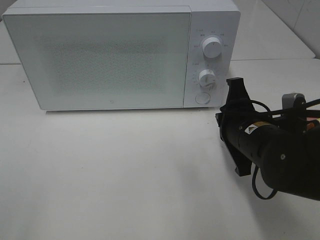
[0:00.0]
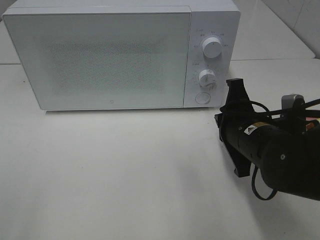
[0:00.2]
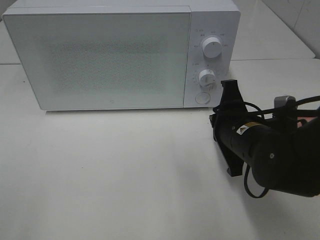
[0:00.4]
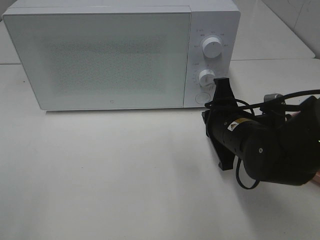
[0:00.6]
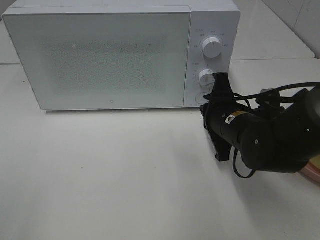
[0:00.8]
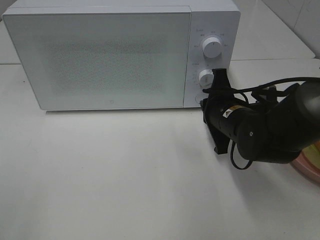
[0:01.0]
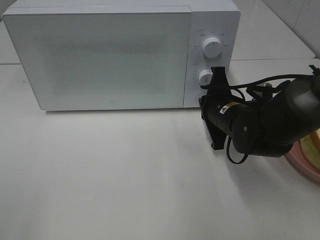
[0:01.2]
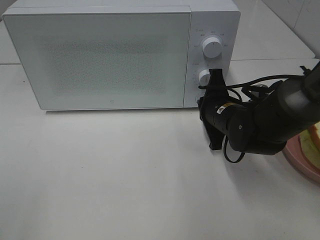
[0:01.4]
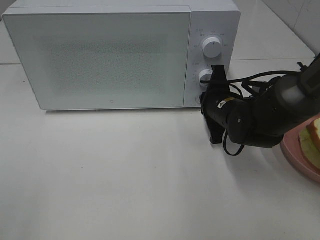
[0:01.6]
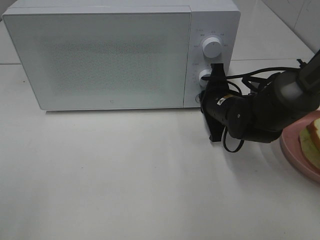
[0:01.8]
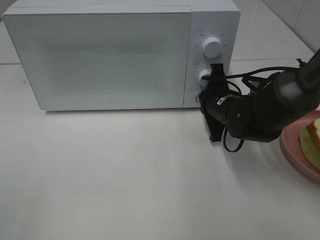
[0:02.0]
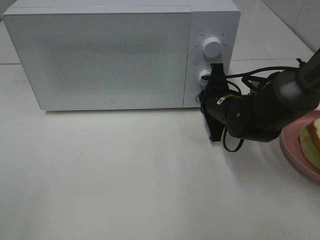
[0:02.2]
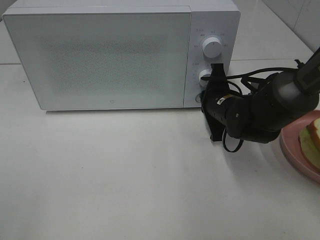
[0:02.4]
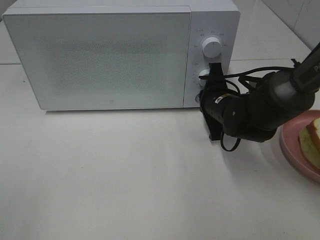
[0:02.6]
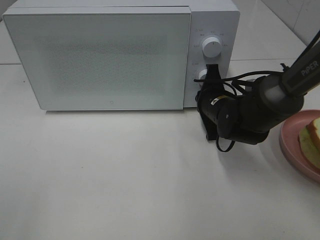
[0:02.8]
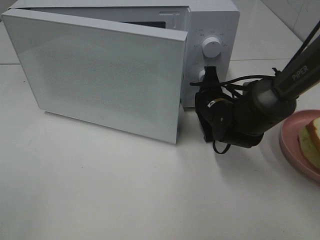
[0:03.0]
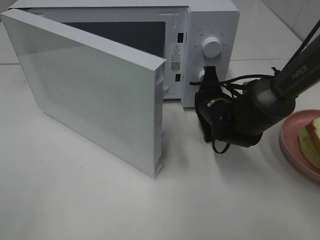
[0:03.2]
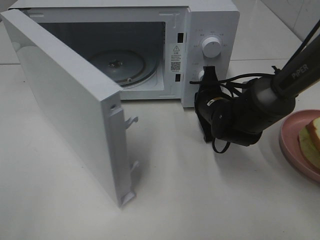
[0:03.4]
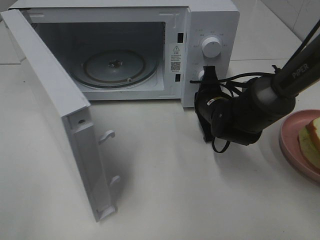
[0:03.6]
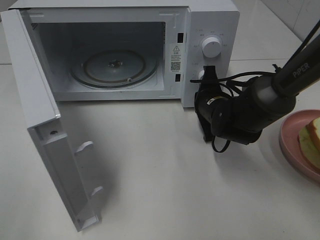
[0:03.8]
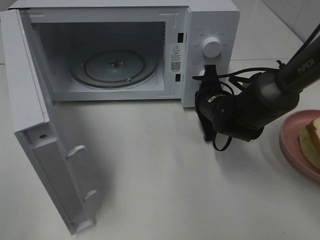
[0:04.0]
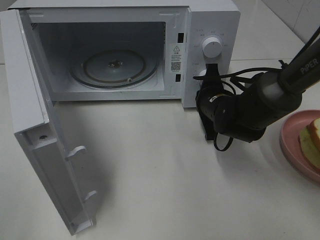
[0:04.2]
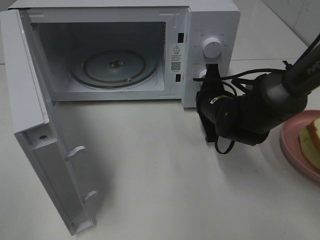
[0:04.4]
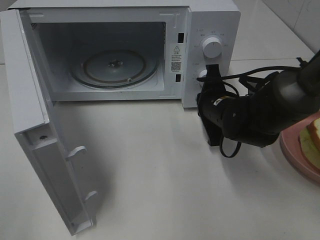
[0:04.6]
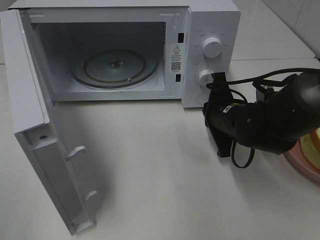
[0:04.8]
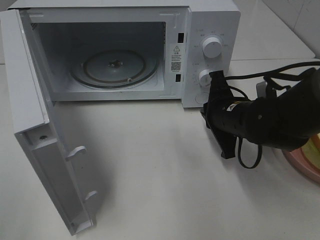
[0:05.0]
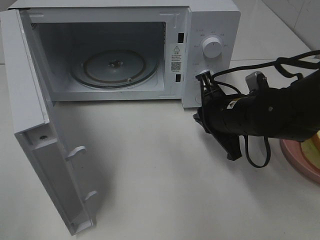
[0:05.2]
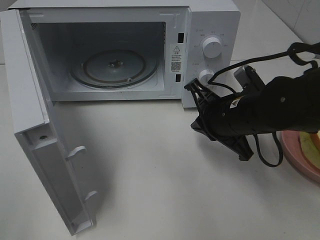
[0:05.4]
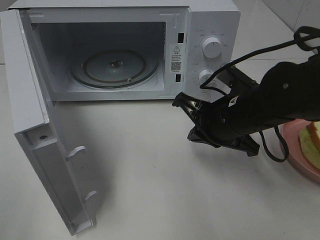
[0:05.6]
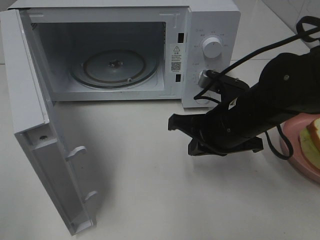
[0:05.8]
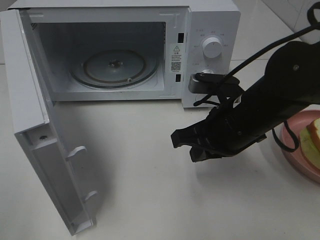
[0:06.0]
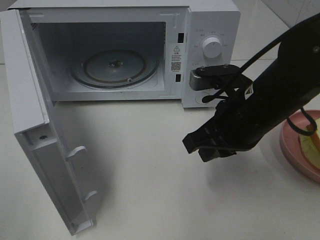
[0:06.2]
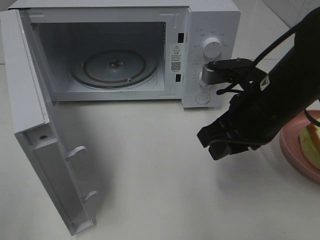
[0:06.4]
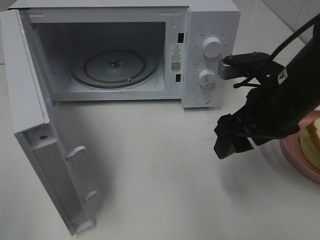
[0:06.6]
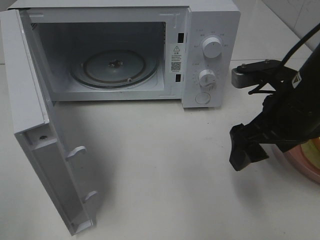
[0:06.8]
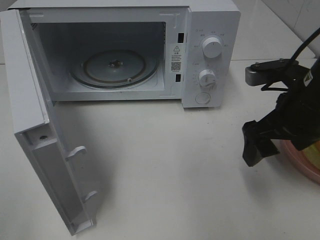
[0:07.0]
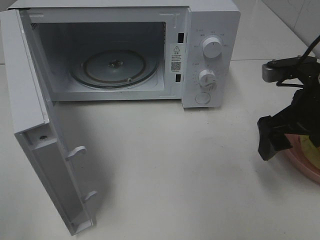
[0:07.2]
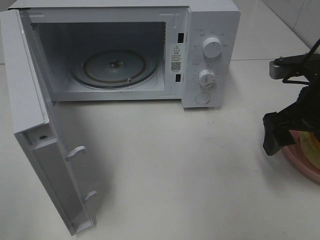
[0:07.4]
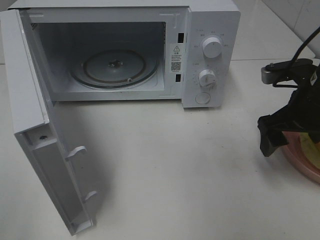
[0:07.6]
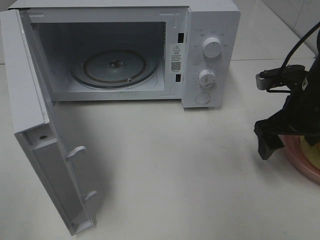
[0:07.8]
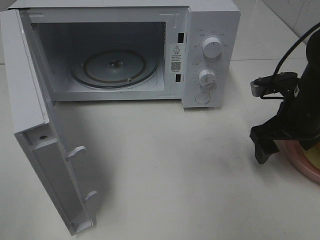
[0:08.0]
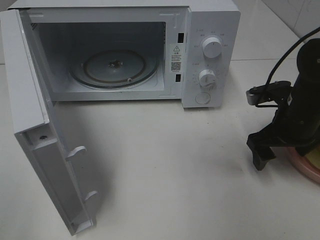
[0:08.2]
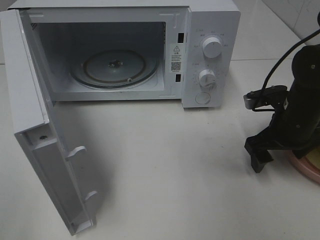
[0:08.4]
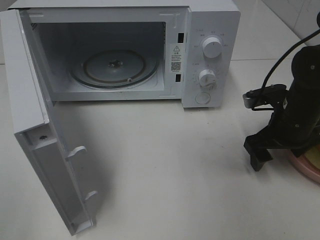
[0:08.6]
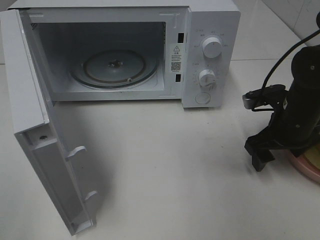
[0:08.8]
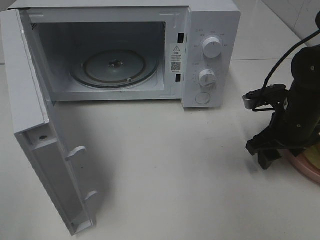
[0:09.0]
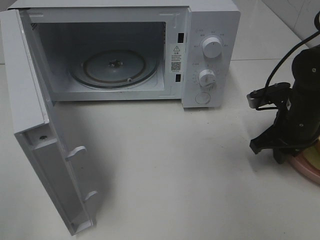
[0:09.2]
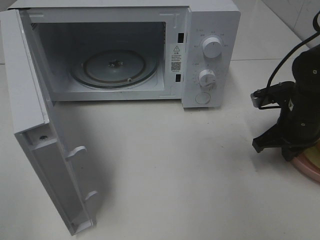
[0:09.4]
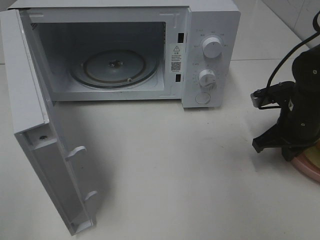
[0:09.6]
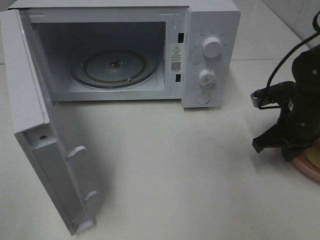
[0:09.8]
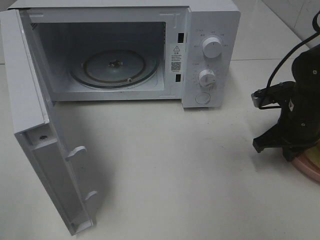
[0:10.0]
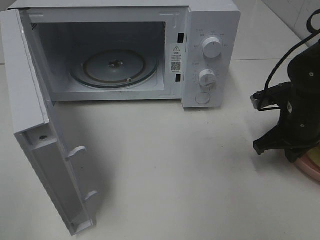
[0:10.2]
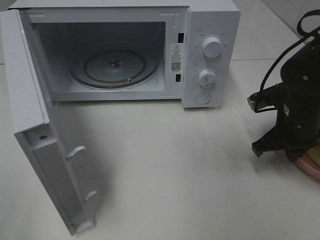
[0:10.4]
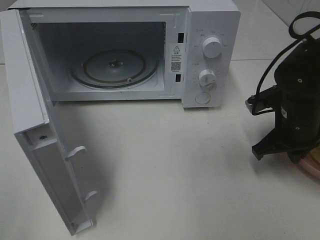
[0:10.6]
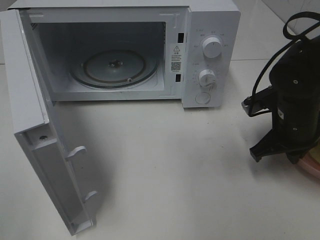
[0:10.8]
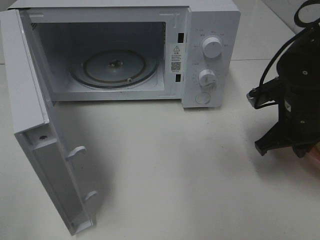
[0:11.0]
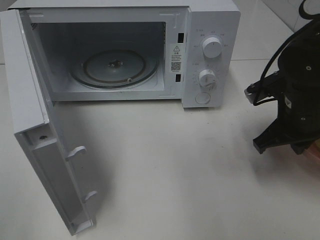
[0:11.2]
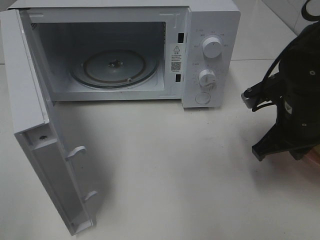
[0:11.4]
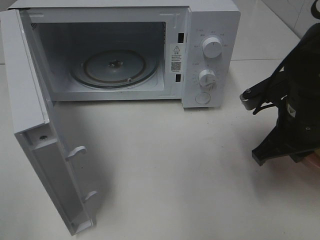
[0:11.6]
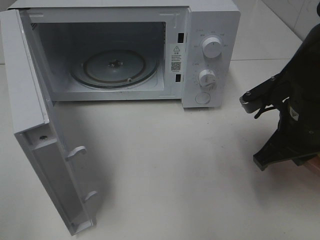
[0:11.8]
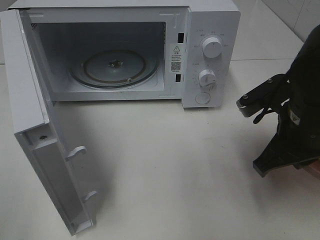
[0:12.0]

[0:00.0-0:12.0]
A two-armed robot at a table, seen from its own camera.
Task of the whole recording: Heat Sandwich.
Step, 0:00.0 to 0:04.6: Right hand: press the switch.
Step, 0:04.8 to 0:09.8: Right hand: grab the plate with the sandwich.
0:00.0 to 0:01.6: The right gripper shifts approximately 10 cm forward.
0:01.6 to 0:03.0: The grippers make only small movements.
0:04.4 to 0:06.0: The right gripper is displaced backward and upward by roughly 10 cm.
0:06.0 to 0:07.6: The right gripper moves to the right, about 10 cm, and opens up.
0:07.6 to 0:09.0: The right gripper is displaced downward by some 5 cm.
0:09.0 to 0:10.4: The right gripper closes up.
0:10.4 to 0:12.0: The right gripper is displaced backward and upward by about 10 cm.

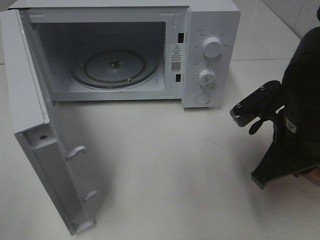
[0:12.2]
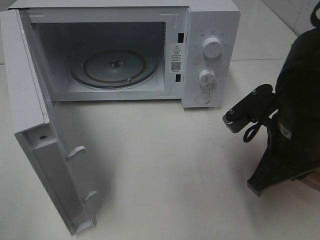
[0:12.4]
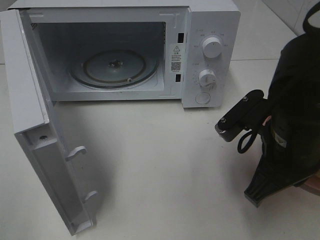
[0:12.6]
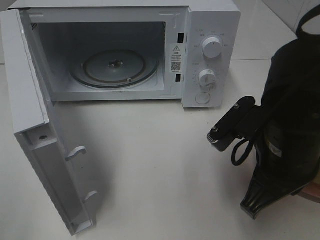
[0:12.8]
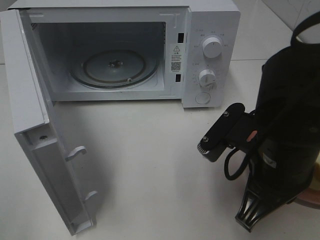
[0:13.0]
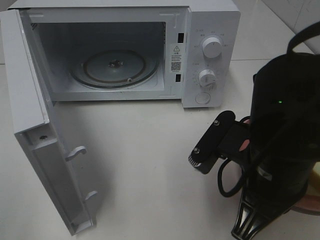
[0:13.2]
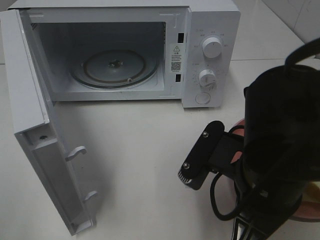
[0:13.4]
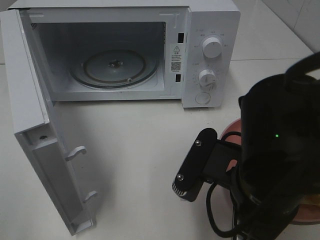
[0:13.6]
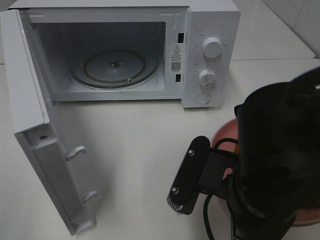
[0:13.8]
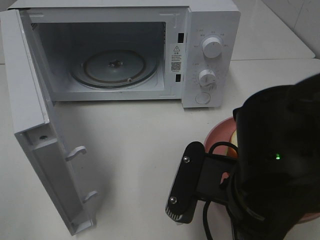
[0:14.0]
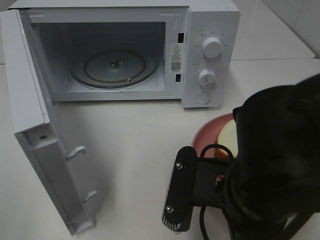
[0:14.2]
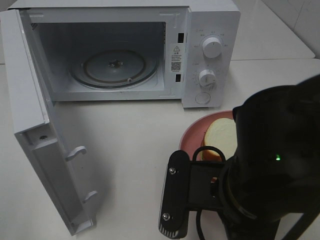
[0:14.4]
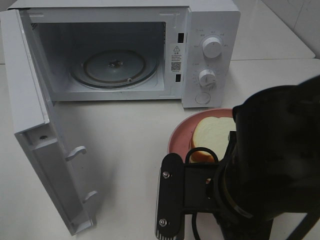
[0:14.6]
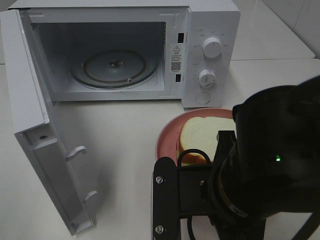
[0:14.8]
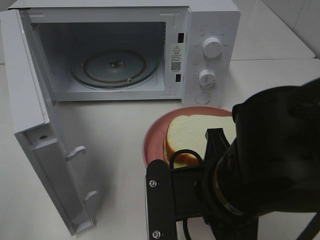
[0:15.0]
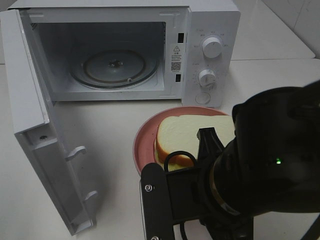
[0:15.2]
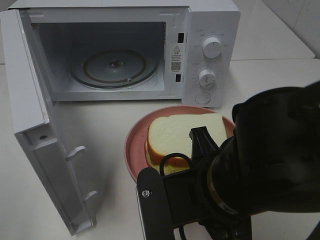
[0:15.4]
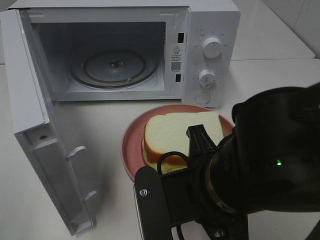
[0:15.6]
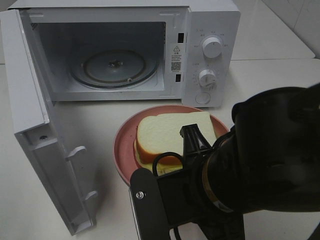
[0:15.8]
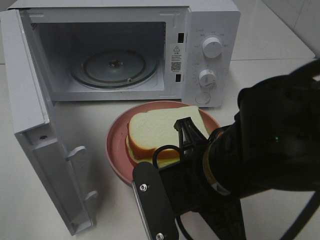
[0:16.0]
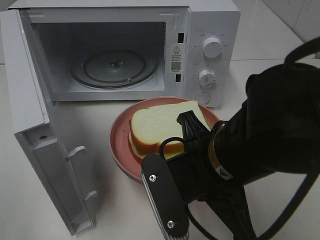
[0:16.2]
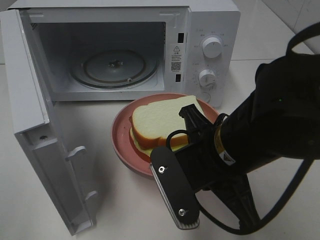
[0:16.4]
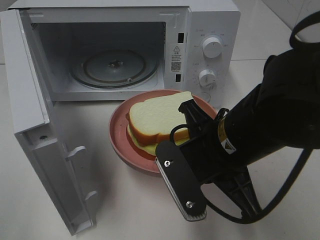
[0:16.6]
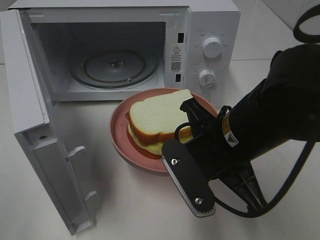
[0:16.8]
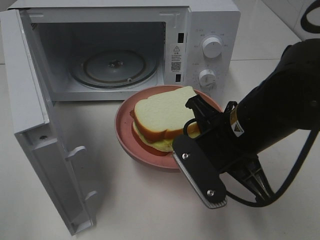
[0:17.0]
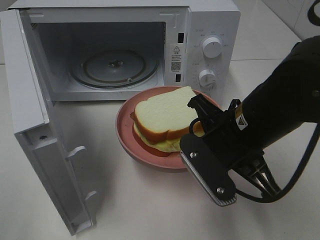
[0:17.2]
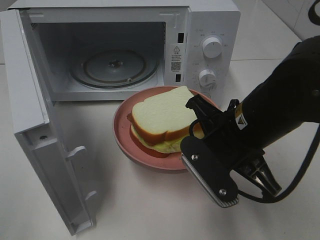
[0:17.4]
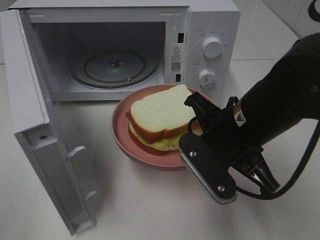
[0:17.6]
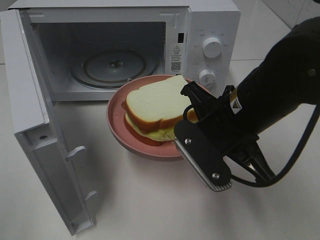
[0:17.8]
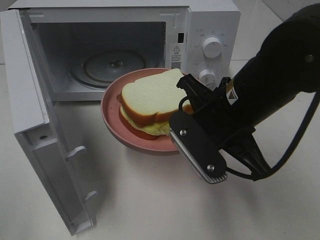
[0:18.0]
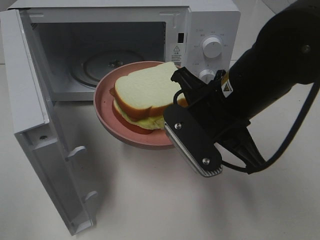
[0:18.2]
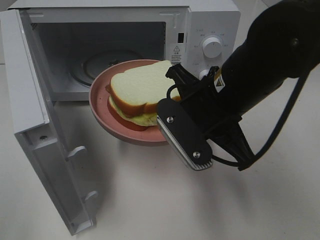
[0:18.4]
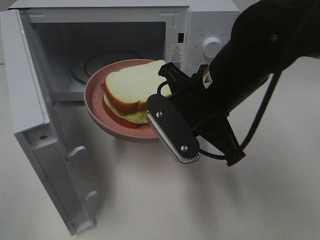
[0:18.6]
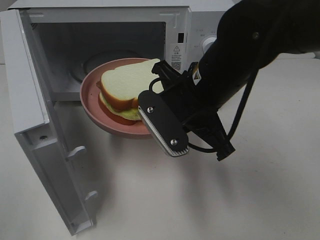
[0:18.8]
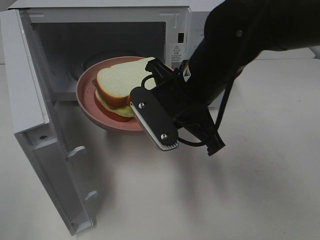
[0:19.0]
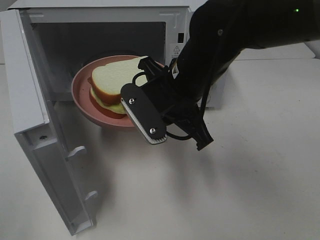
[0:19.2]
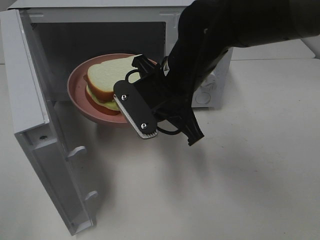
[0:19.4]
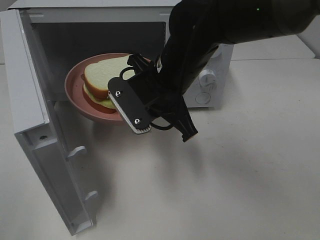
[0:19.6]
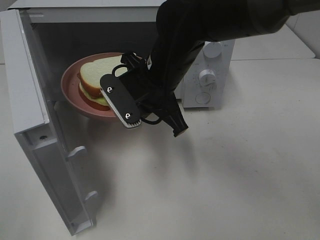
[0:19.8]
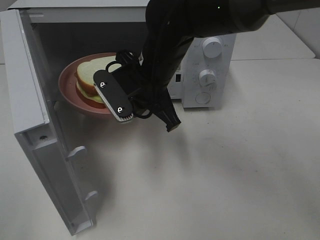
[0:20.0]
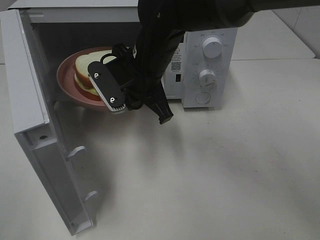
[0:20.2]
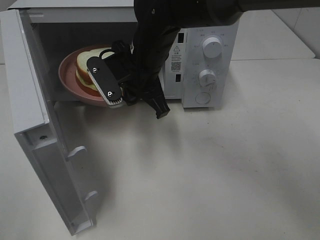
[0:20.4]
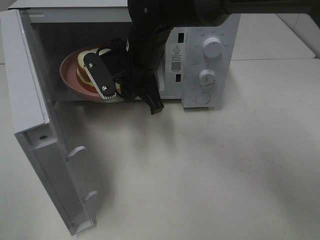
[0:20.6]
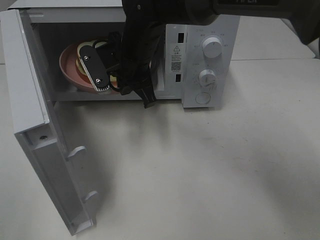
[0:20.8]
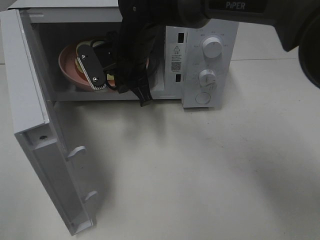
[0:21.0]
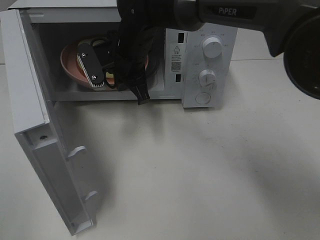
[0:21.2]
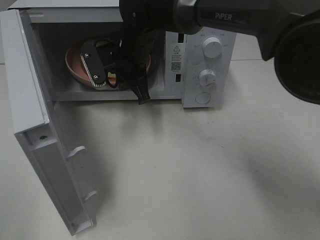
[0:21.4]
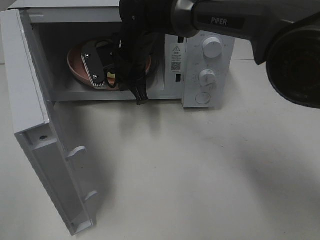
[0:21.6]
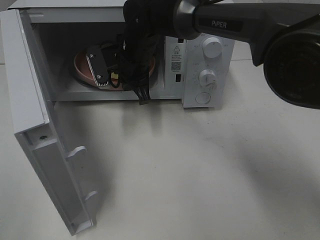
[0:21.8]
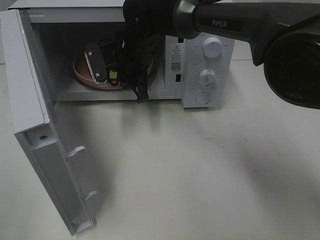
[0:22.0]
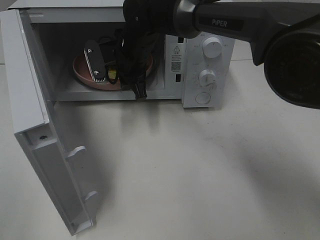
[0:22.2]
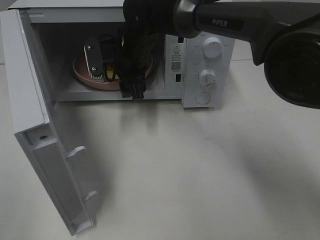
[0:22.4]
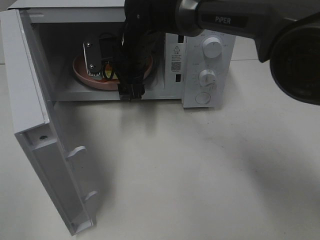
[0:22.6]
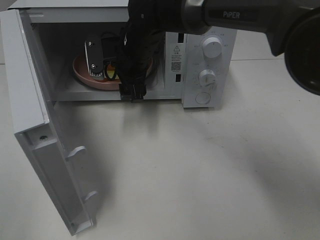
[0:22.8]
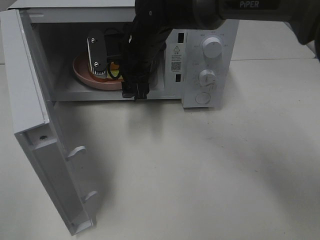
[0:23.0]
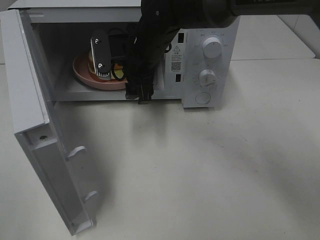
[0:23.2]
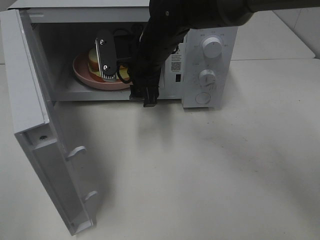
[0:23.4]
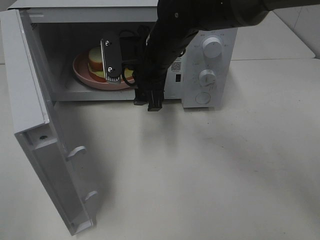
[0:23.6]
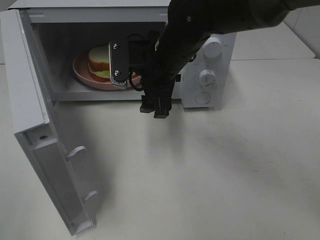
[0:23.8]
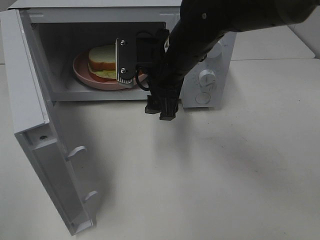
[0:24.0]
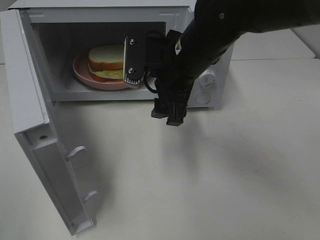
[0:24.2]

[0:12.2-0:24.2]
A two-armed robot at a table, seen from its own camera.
Task of the whole recording: Heat Sandwich.
Step, 0:12.2 to 0:23.0: Right hand: place the plate in the microwave.
0:12.2 to 0:13.8: The right gripper travels backward and to the left by roughly 10 cm.
0:15.2 to 0:16.6: The right gripper travels forward by roughly 5 cm.
0:16.6 to 0:18.2: The right gripper shifts by roughly 5 cm.
0:18.2 to 0:19.8: The right gripper is displaced forward and to the left by about 10 cm.
0:19.8 to 0:21.2: The right gripper moves forward, some 10 cm.
0:21.2 to 0:22.6: The right gripper opens up.
0:22.6 to 0:24.2: The right gripper travels backward and to the right by about 15 cm.
